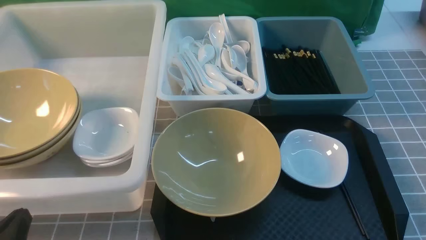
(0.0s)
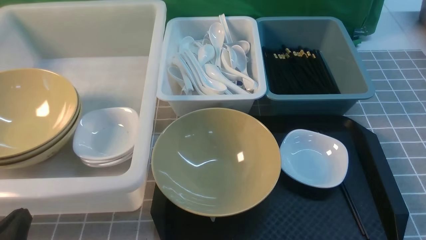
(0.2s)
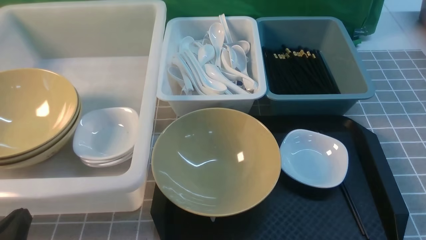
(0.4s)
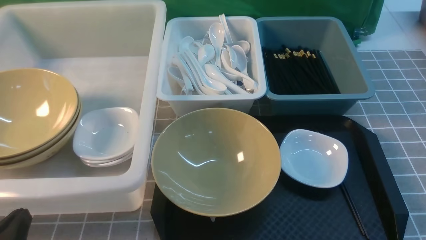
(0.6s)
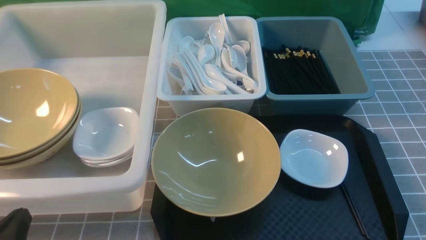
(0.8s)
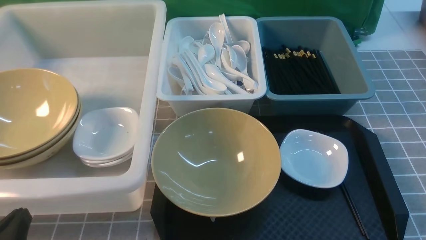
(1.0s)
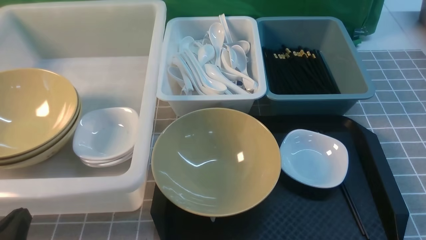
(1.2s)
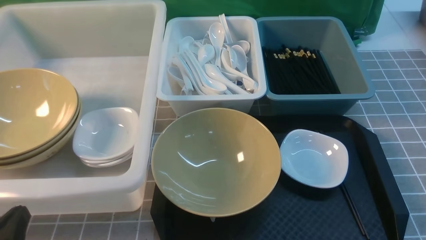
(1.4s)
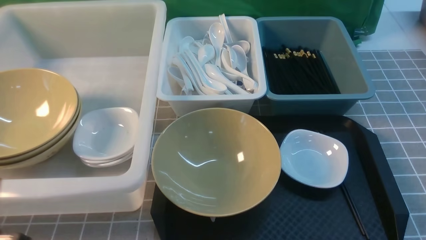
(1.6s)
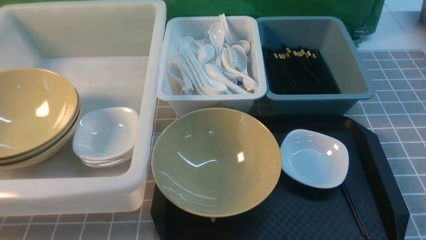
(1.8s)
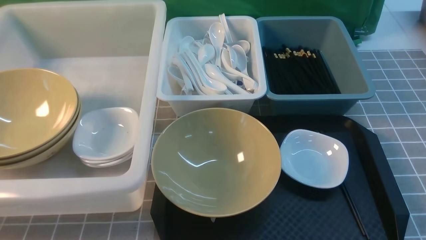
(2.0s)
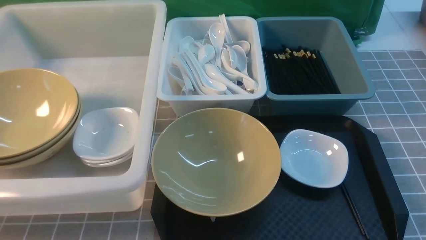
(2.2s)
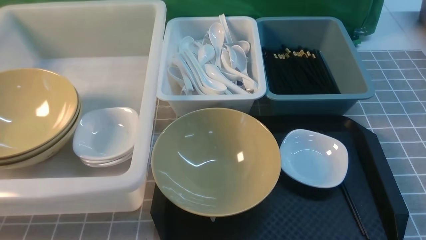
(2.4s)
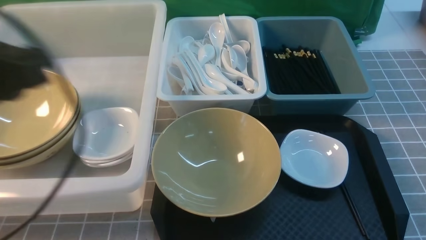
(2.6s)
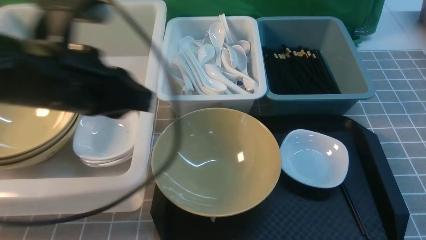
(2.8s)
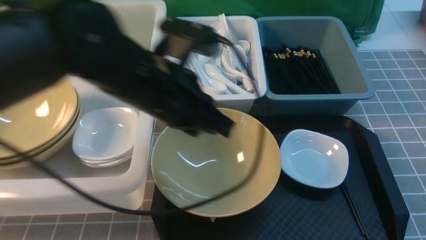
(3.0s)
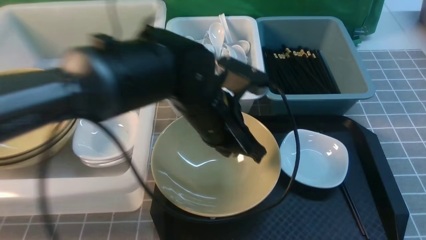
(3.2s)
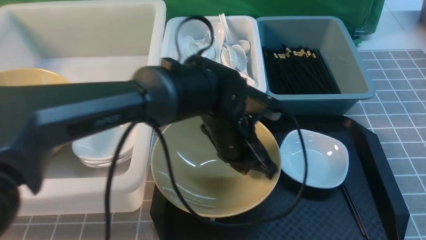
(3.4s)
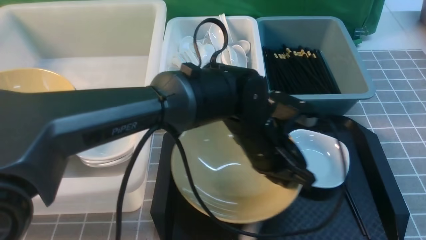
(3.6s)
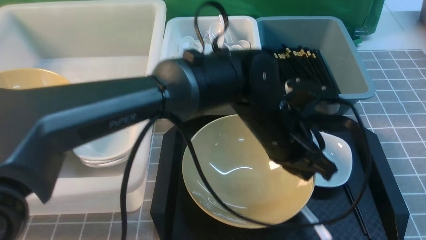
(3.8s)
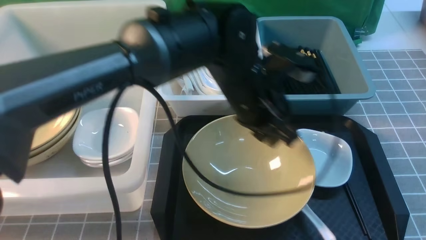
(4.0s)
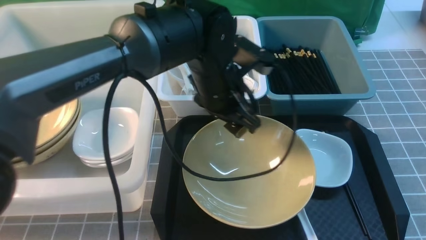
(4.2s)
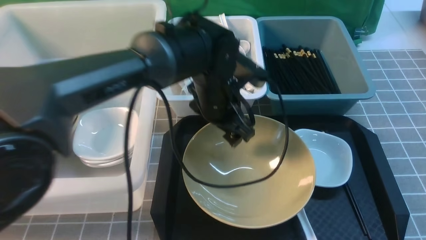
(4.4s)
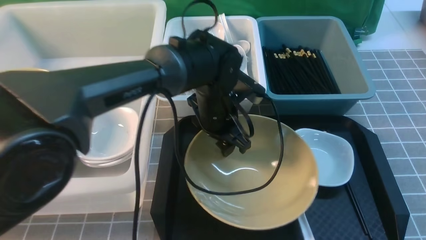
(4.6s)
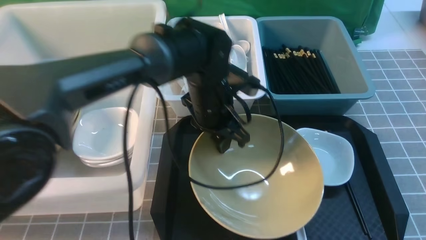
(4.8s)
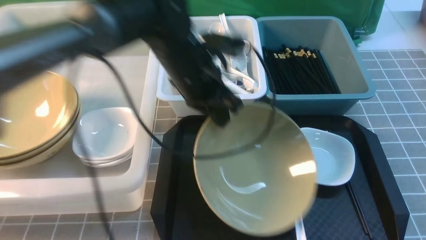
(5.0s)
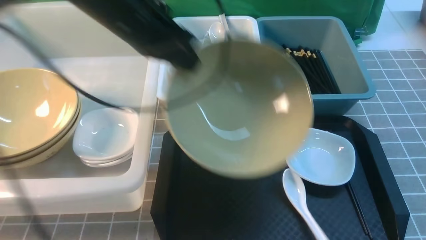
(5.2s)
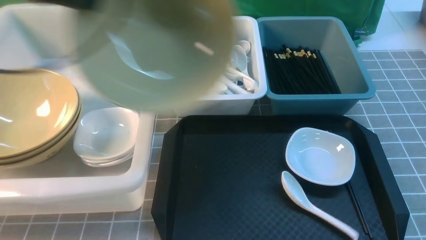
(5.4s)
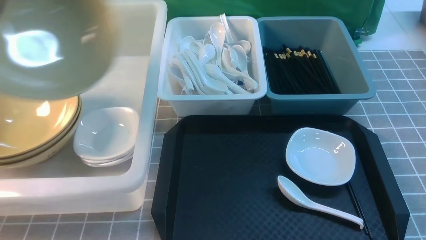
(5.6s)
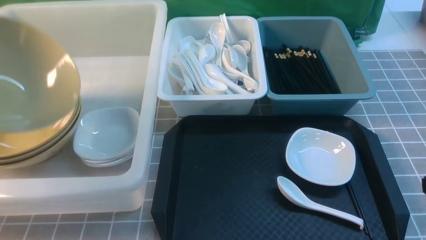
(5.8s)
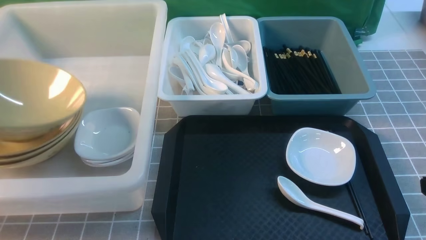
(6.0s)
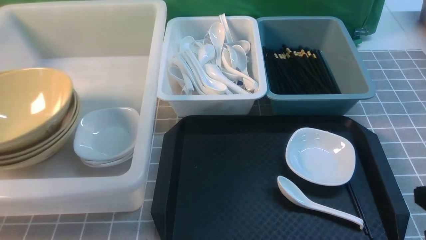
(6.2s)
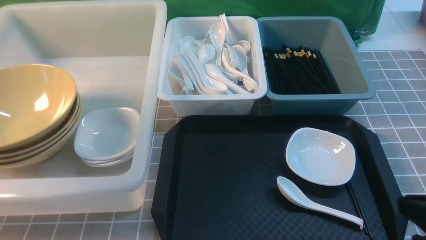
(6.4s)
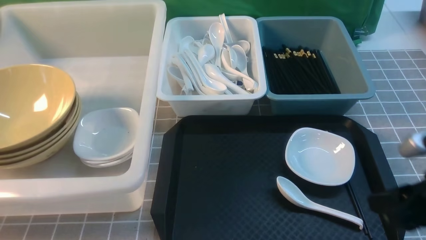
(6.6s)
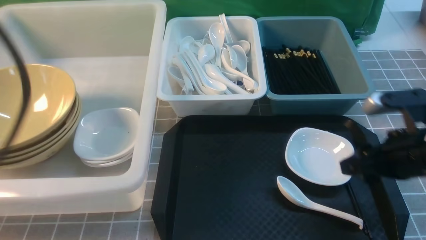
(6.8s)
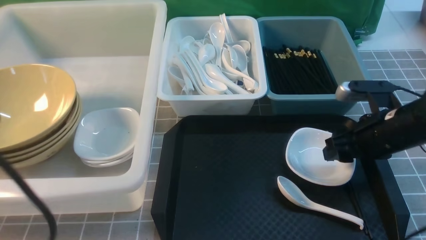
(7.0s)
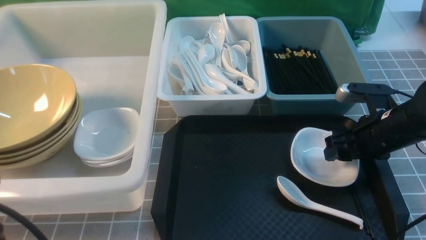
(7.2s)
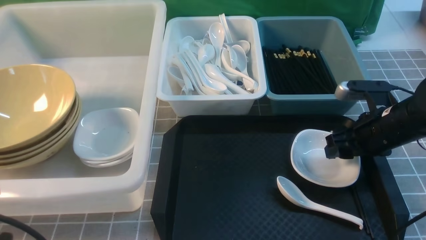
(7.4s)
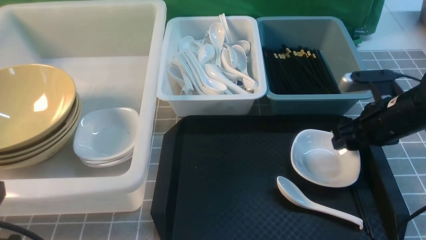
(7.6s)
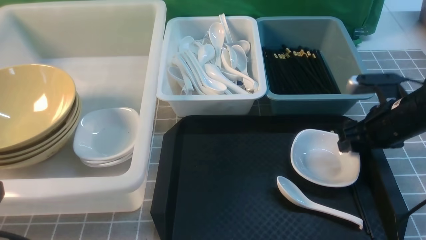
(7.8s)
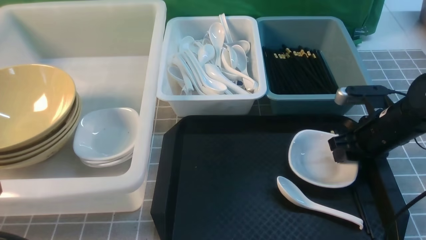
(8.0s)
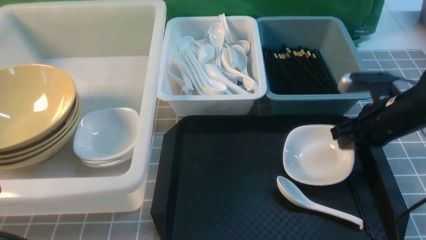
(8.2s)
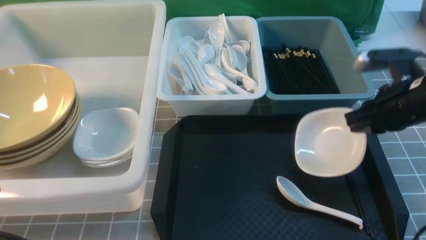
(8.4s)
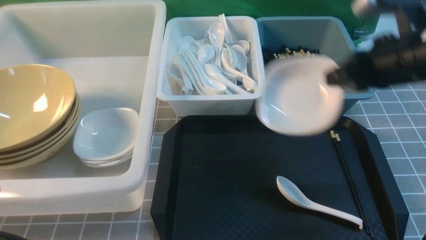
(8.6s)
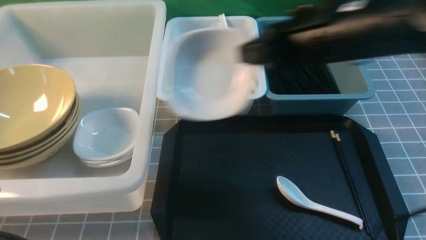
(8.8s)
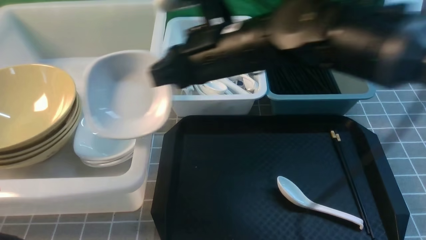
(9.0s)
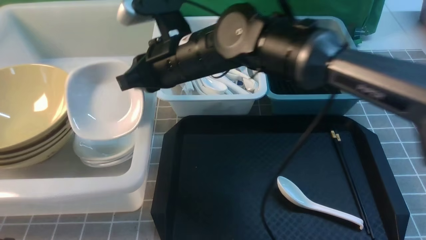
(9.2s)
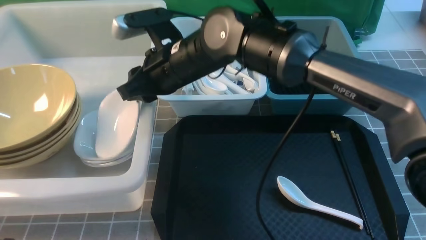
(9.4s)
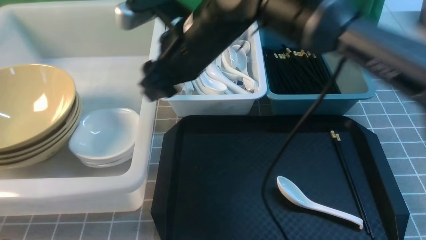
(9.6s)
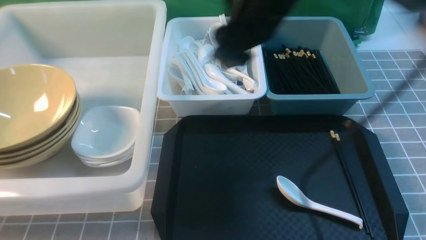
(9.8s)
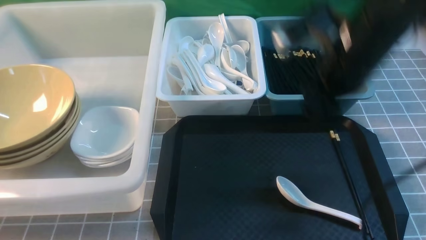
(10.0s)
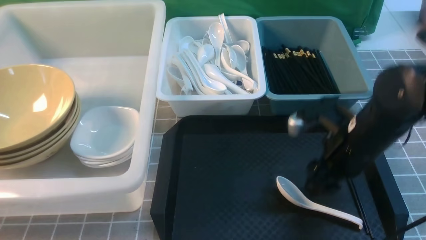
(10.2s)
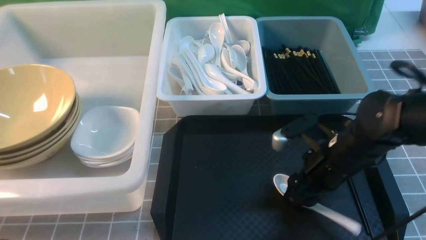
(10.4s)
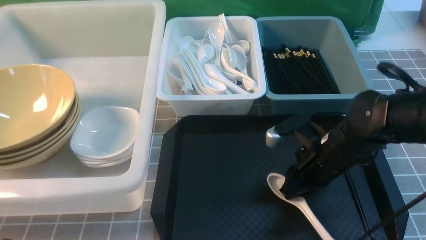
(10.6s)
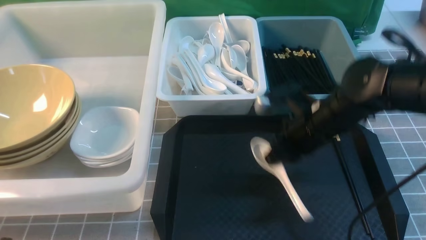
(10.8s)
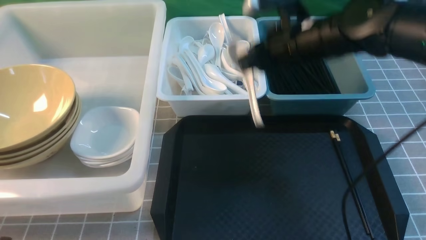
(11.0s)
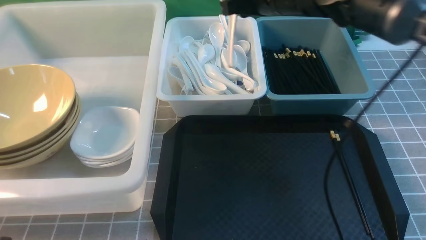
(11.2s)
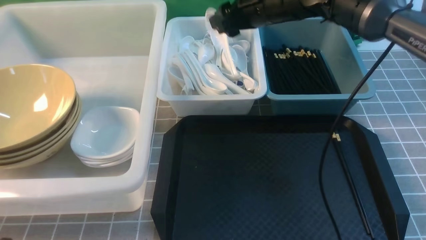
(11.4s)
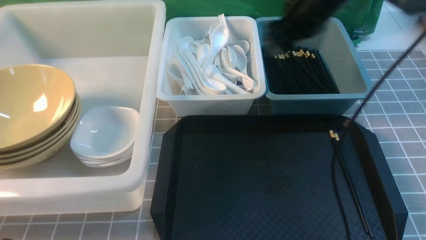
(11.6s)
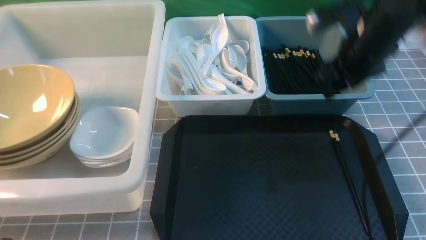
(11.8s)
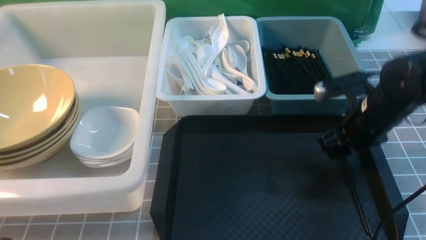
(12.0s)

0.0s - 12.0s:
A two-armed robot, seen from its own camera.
Task of the whole recording: on grey table put chopsticks spoon bowls plates into blue grey white boxes.
Step, 0.0s - 5.0s: use the left arm to grab the yellow noodle bowl on the left.
Step, 5.2s - 6.4s: use the left arm to put the noodle bowl into the large storage box on the left.
Step, 6.6s - 8.2s: use the right arm to grab the plate.
Step, 8.6s - 9.4s: use the right arm to put the plate into the large storage box on the left.
Step, 9.6s - 10.6s: use the right arm to grab the soup spoon in the middle.
Step, 10.8s - 11.6s: use the right arm to put the soup spoon into the small storage box in the middle.
1.6s - 3.0s: The right gripper travels forward by approximately 5 cm. Meanwhile the left gripper heads forward, to the right and upward, covering some 30 cm.
3.0s - 4.4s: The left gripper travels forward, downward and to the right by roughly 15 cm, and opens.
4.4s - 6.0s: The left gripper moves to the left, approximately 40 cm, and closes up.
6.0s - 7.6s: The left gripper travels backward and to the right by about 25 cm, and closes up. The right gripper shifts roughly 20 cm forward, and opens its fingers.
7.6s - 9.0s: The right gripper shifts about 30 cm to the left and upward, and closes.
9.0s - 10.4s: The right gripper shifts about 20 cm to the right and downward, and opens up.
10.4s - 12.0s: The right gripper heads forward and to the right, covering roughly 10 cm, and closes, then opens again.

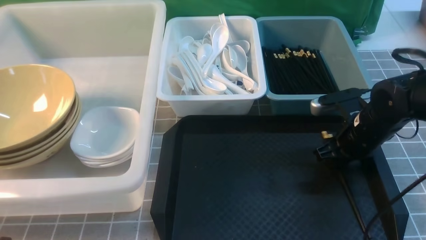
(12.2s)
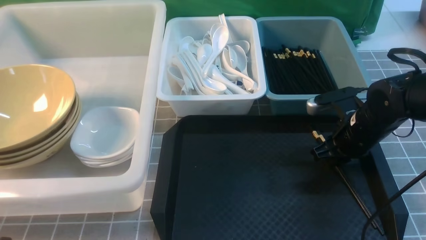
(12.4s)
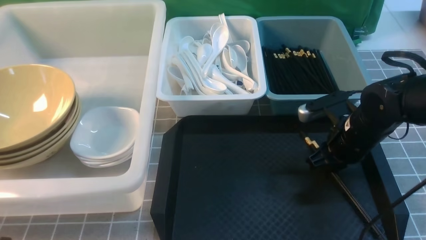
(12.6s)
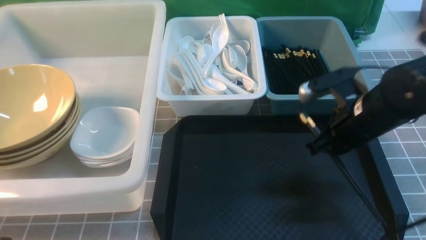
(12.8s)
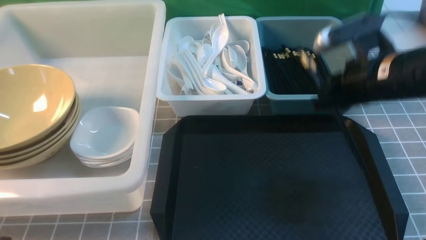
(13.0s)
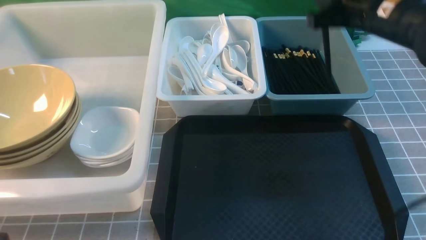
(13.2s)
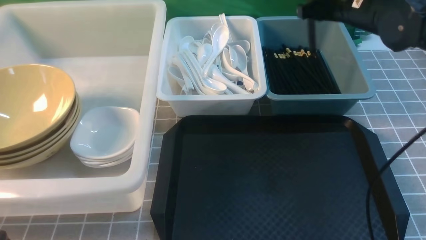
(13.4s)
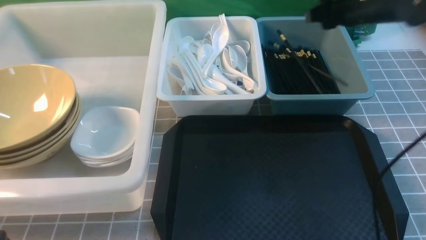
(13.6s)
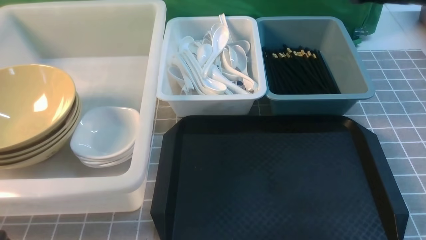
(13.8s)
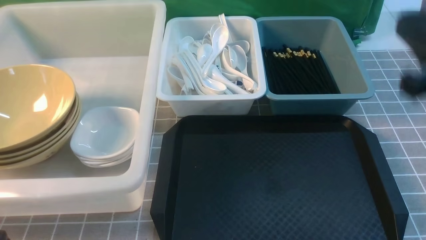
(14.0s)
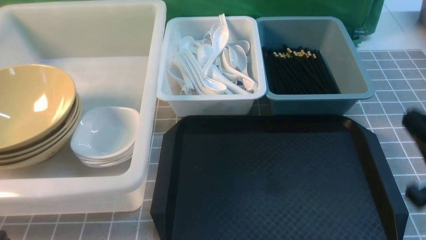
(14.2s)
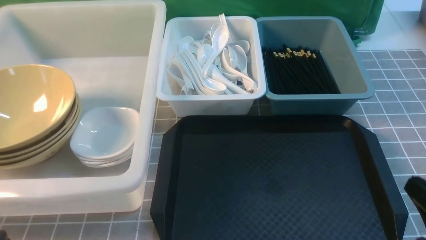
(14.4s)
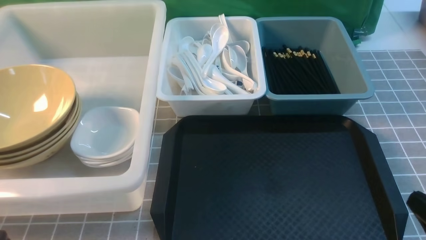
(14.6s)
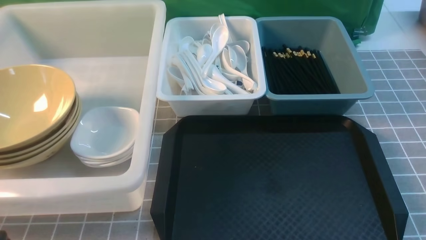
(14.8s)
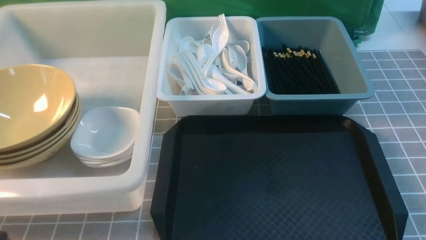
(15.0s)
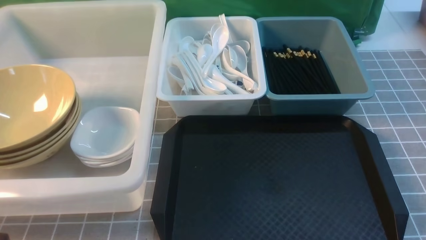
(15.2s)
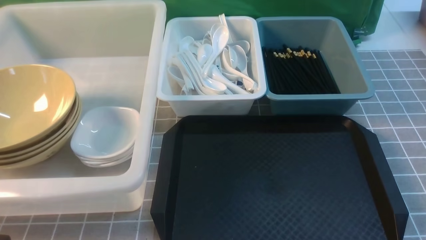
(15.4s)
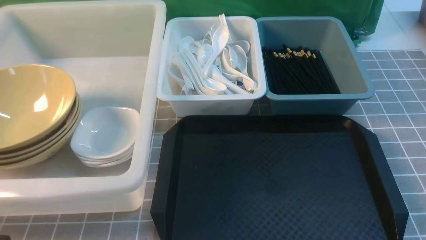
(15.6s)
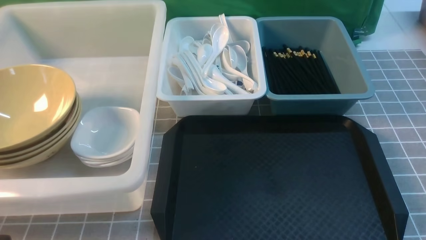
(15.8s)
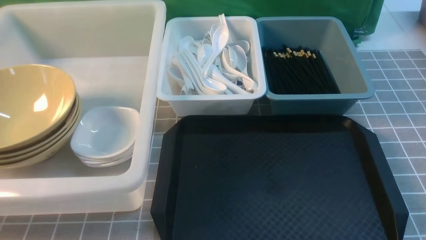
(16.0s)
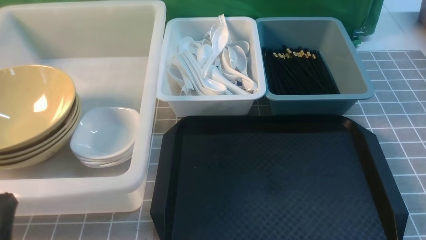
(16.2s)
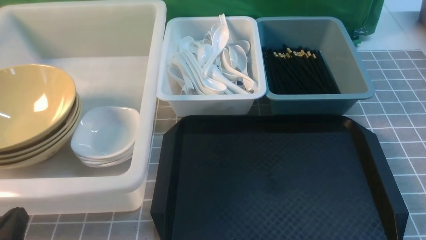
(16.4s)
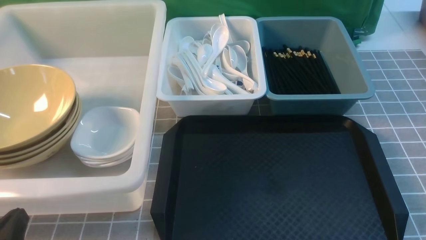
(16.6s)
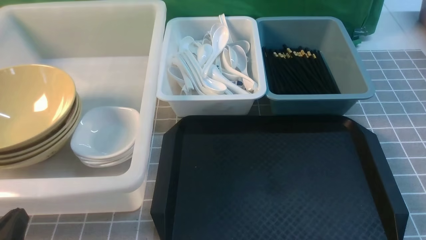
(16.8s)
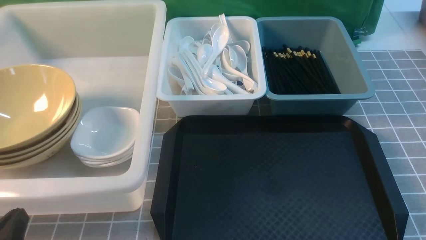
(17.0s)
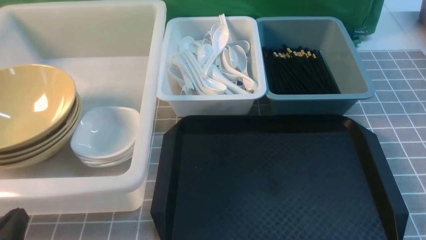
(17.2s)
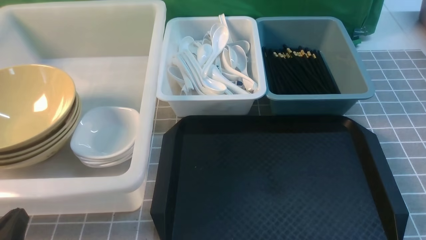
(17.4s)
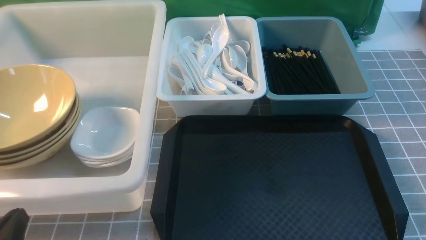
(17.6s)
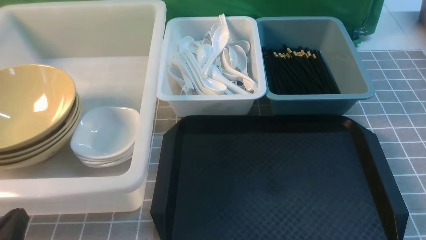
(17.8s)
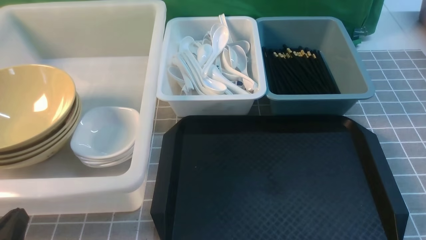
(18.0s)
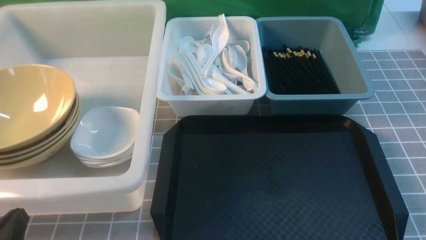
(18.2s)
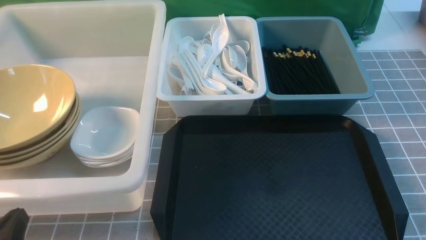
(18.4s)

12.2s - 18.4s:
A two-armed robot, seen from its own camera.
Task of the whole recording: on grey table put chopsticks spoon bowls plates into blue grey white boxes.
Step, 12.2s - 12.8s: use the right arm to grab the chopsticks.
Step, 13.0s - 13.6s: use the right arm to put the chopsticks into the small storage box on the right.
12.2s - 13.8s: The right gripper goes some 20 cm upward, and closes its fingers.
15.4s - 16.8s: The left gripper is displaced downward by approximately 10 cm.
16.8s - 18.4s: The two grippers keep their place.
